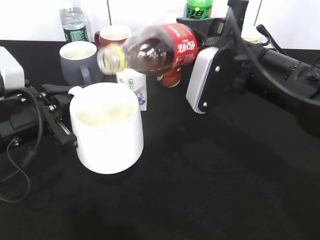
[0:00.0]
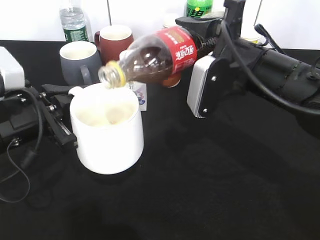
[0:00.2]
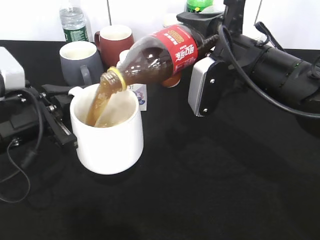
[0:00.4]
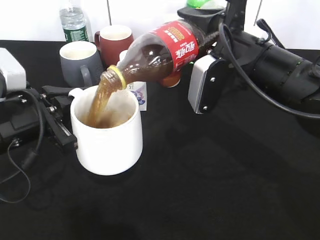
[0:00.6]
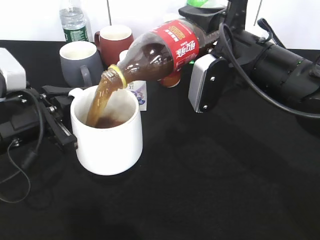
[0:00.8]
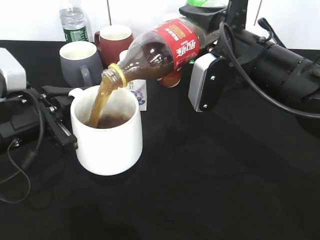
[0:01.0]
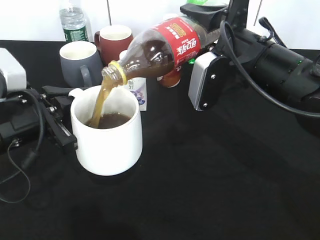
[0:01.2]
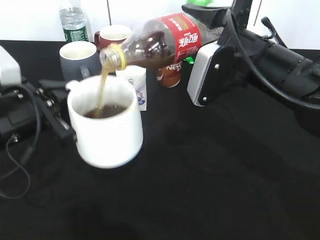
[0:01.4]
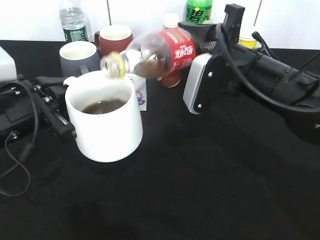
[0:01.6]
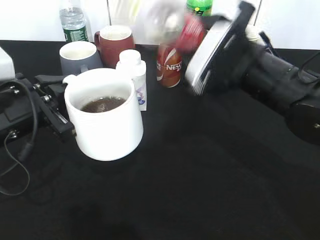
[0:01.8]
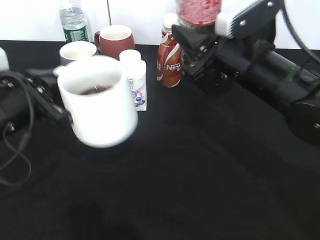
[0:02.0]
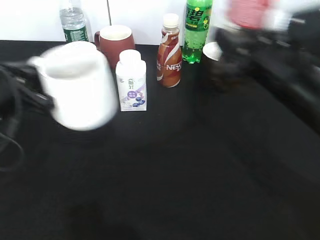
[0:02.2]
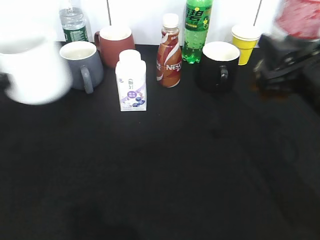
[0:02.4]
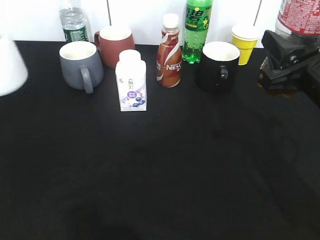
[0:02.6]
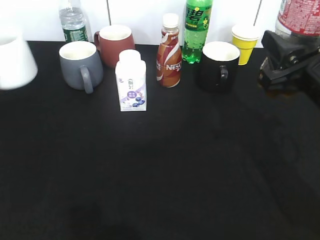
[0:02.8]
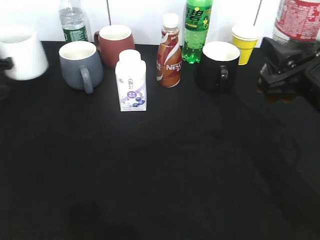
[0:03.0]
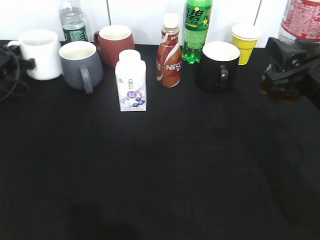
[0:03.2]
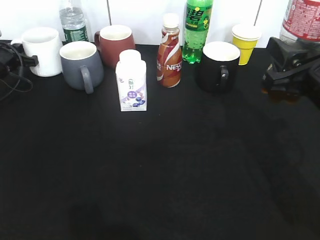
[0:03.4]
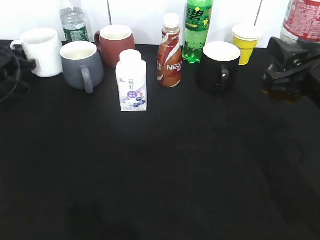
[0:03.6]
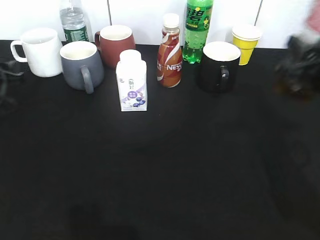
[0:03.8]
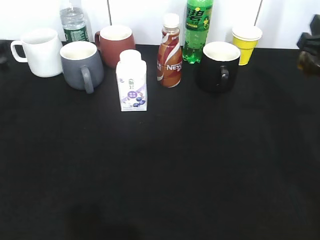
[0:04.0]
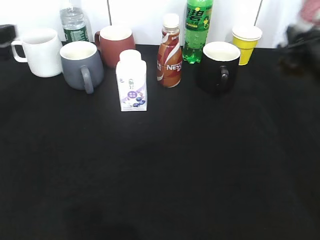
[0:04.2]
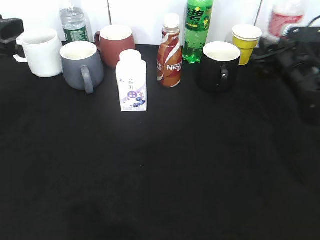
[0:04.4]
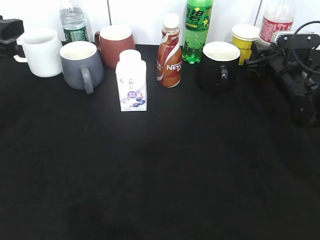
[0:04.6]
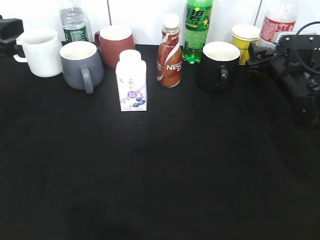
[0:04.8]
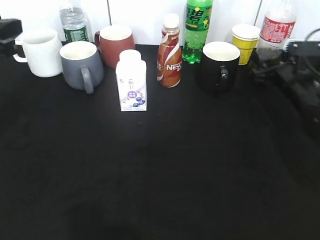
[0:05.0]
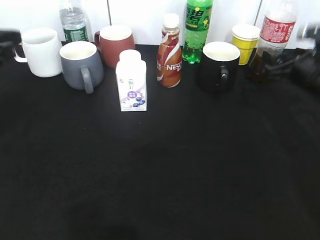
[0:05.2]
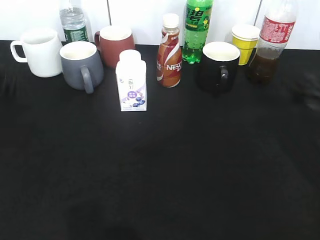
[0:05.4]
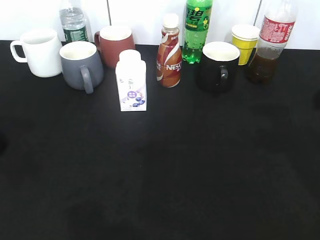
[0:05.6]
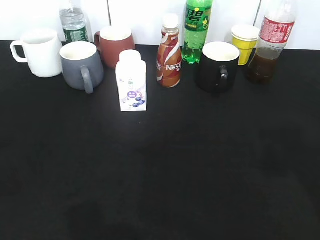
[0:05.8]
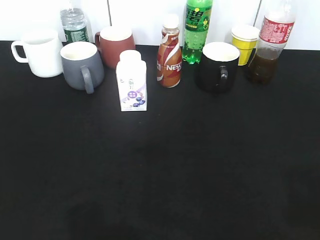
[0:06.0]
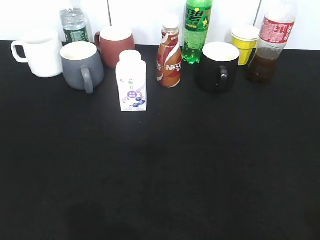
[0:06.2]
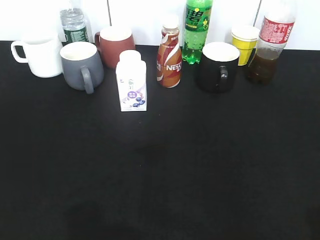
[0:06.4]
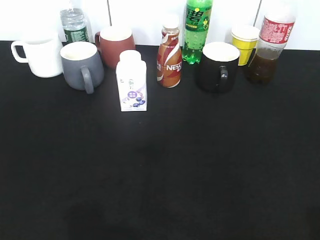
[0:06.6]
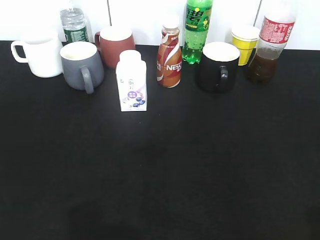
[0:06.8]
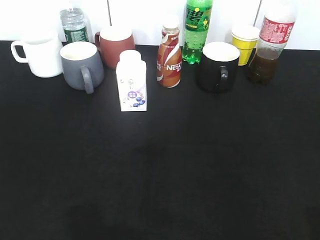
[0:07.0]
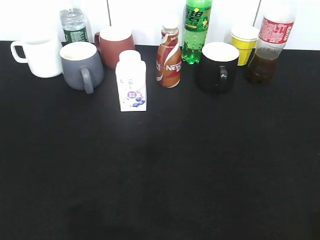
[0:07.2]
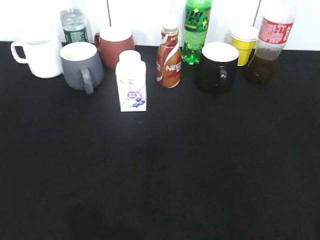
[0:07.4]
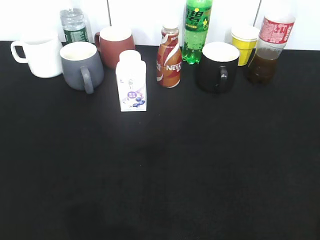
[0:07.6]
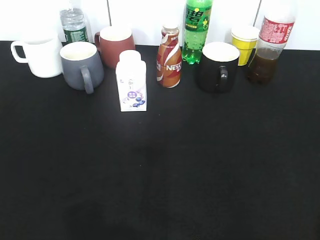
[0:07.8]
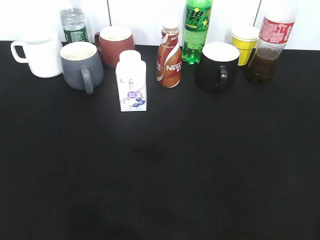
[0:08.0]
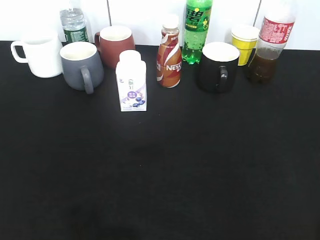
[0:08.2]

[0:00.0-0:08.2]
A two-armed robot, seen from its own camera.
Step, 0:01.8 to 0:03.8: Place the white cup on the table with left gripper.
Step, 0:04.0 to 0:05.2: Place the cola bottle on the table with right gripper.
0:00.0 to 0:01.6: The grippers make only small movements.
0:01.6 to 0:03.2: The right gripper travels to the right and backward by approximately 10 cm. Meanwhile the left gripper goes some 25 cm forward and to the left.
0:03.2 to 0:05.0: The right gripper goes roughly 20 cm forward and downward, and opens up, while the left gripper heads backward, upward and to the right, covering approximately 25 cm, and opens up.
0:05.0 to 0:06.6: The left gripper is displaced backward by some 25 cm; the right gripper is displaced backward and upward by about 40 cm.

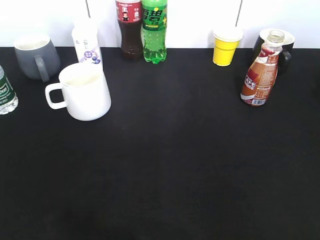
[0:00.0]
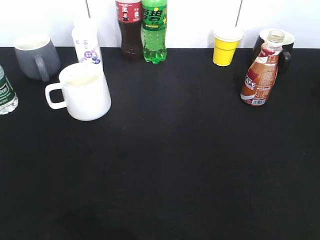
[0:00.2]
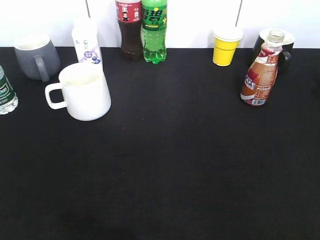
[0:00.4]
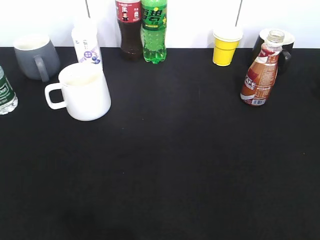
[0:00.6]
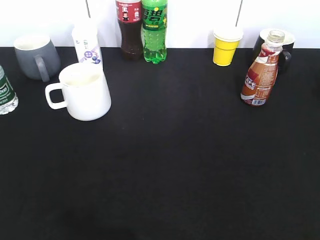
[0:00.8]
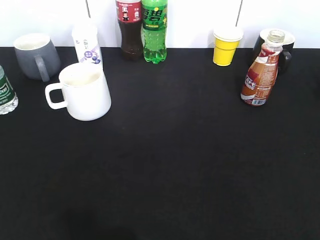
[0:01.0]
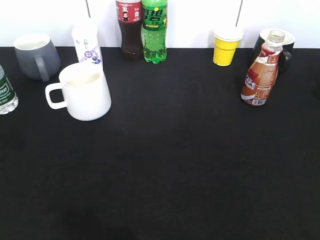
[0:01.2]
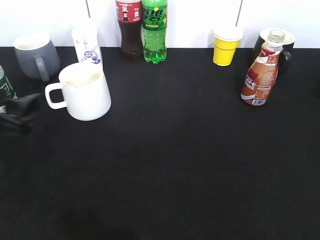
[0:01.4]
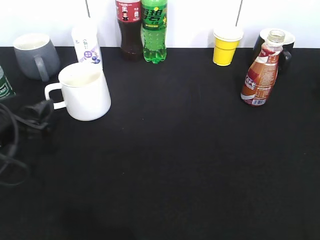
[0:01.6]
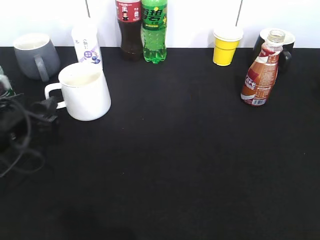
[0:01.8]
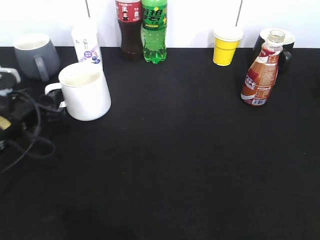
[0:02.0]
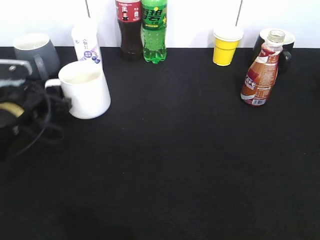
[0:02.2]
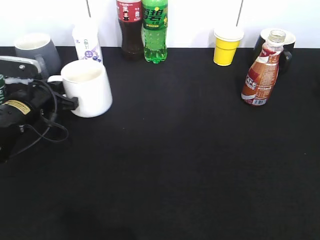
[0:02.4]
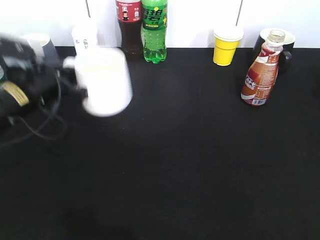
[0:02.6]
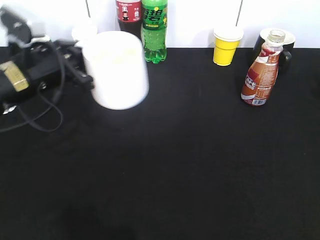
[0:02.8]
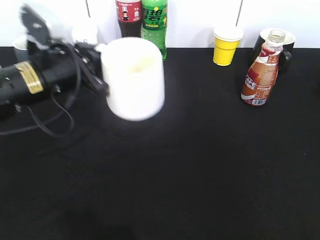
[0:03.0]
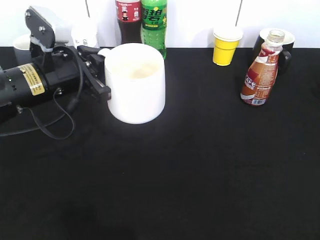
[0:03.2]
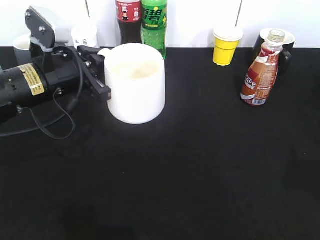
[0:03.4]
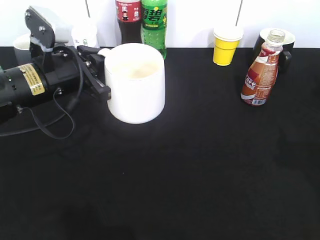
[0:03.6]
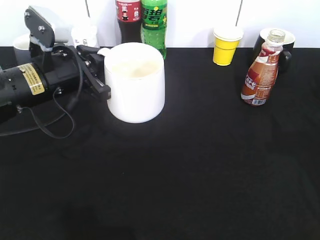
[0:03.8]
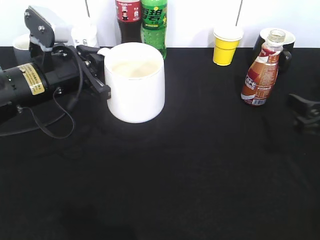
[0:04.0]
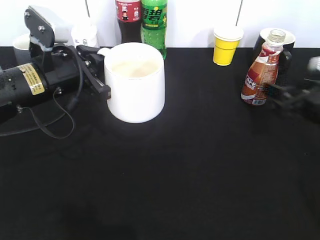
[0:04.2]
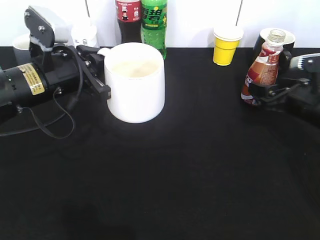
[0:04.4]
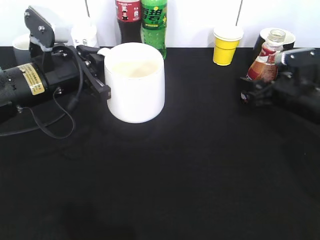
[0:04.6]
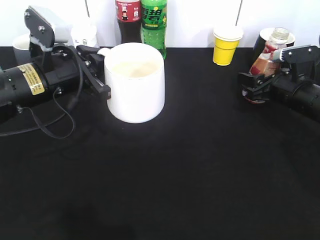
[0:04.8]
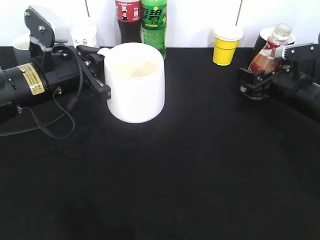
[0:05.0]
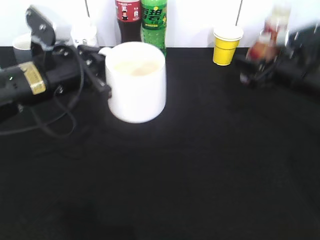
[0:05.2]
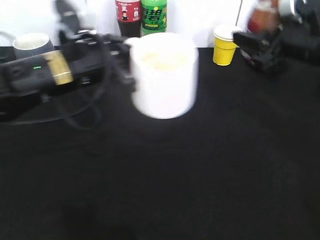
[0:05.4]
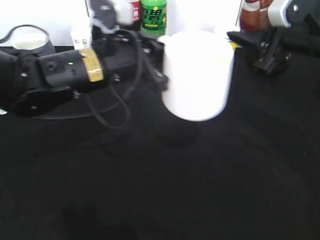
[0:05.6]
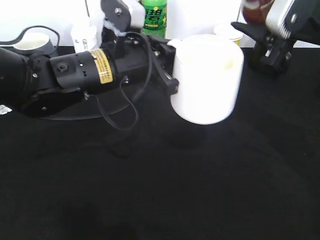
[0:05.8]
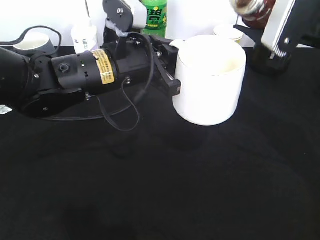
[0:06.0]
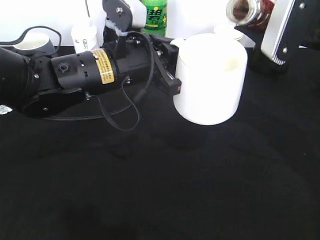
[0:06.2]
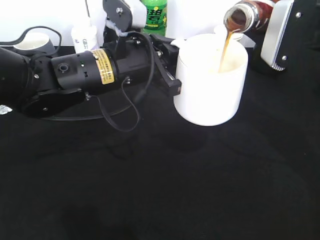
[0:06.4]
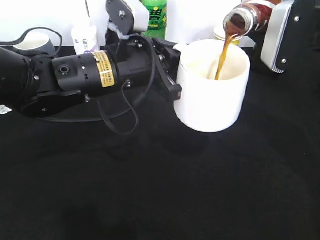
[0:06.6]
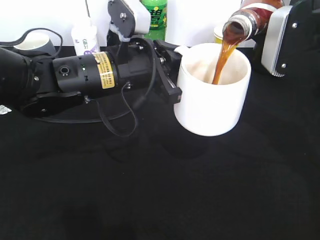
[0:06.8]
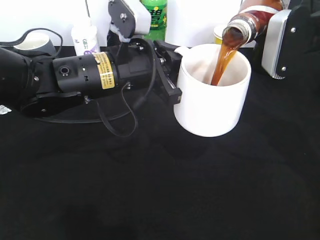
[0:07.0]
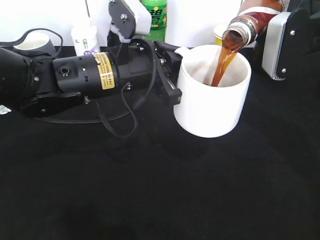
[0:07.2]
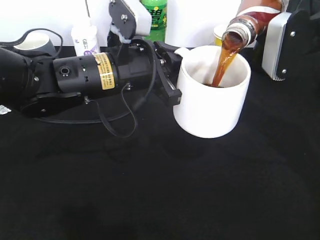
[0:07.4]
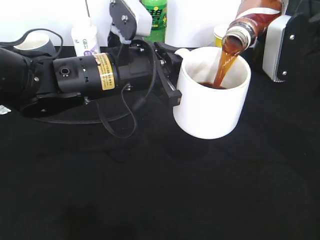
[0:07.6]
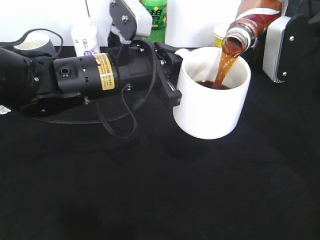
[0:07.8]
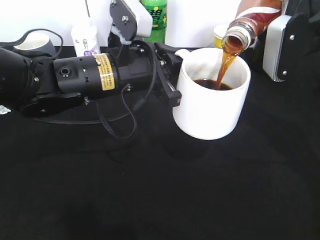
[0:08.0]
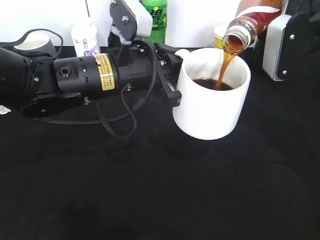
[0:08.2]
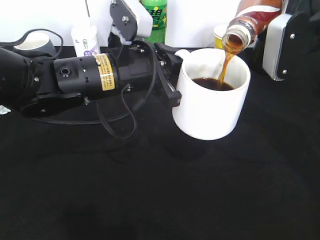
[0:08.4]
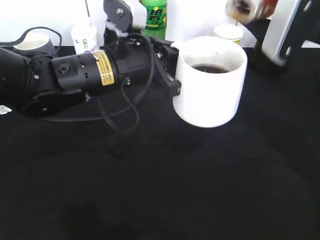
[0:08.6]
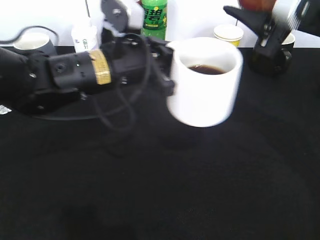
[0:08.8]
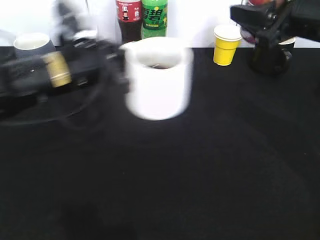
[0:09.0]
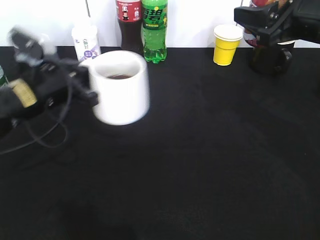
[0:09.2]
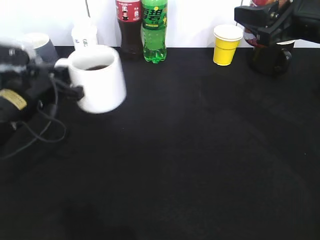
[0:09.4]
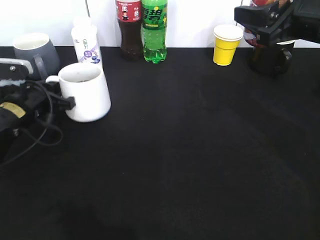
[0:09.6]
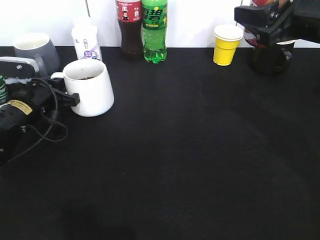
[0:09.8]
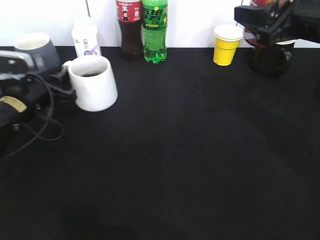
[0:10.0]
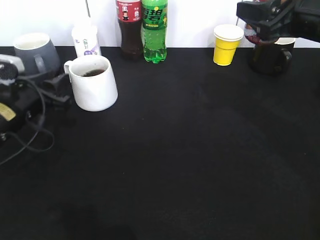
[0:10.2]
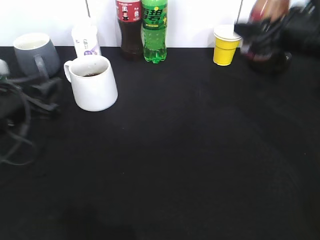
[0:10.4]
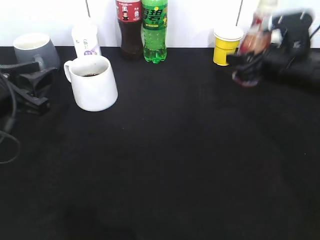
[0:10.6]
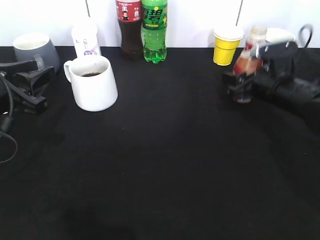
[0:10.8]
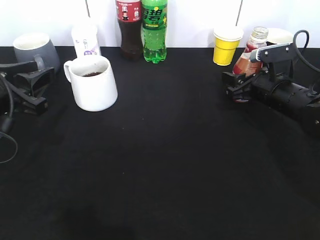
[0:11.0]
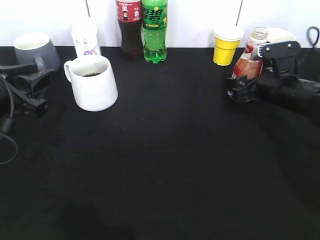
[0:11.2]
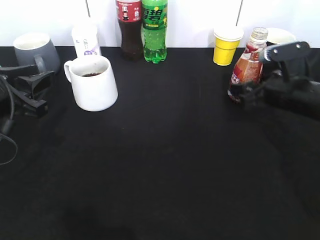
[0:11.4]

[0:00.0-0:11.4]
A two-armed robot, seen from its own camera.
Step, 0:00.8 to 0:02.2: Grasp the white cup with left gripper.
Step, 0:02.4 to 0:03.0: Lift the white cup with left gripper.
Step, 0:03.2 to 0:04.6: Grasp the bottle with coffee with right gripper.
Step, 0:04.8 to 0:08.8: Pour the coffee from bottle to cup with right gripper.
Step, 0:09.2 to 0:10.0: Place the white cup on the table with left gripper.
0:00.0 to 0:01.4: The left gripper is displaced forward and downward by about 25 cm, and opens its fingers.
0:01.4 to 0:02.8: The left gripper moves forward and to the right, roughly 10 cm, and closes its fingers.
0:02.8 to 0:04.2: The right gripper shifts about 30 cm forward and downward, and opens its fingers.
0:04.2 to 0:05.6: The right gripper heads upward and to the left, covering roughly 15 cm, and closes up, while the left gripper shifts about 10 cm to the right.
0:07.2 to 0:08.6: There are only small adjustments of the grippers.
0:08.6 to 0:10.0: The left gripper shifts roughly 20 cm to the left and downward, and opens up.
0:10.0 to 0:11.4: The right gripper is displaced downward by roughly 15 cm, and opens, while the left gripper shifts some 10 cm backward and upward.

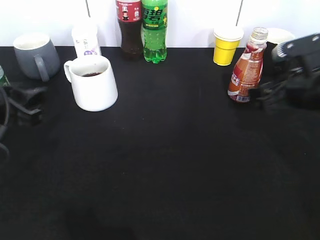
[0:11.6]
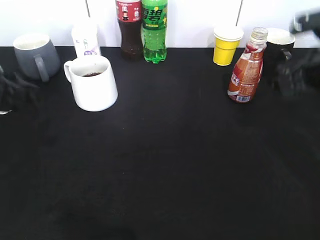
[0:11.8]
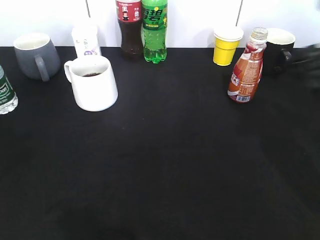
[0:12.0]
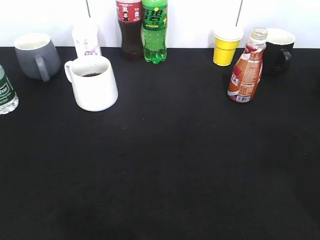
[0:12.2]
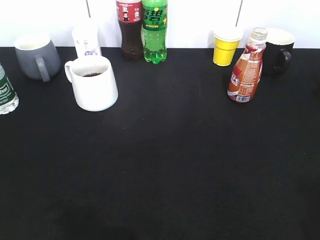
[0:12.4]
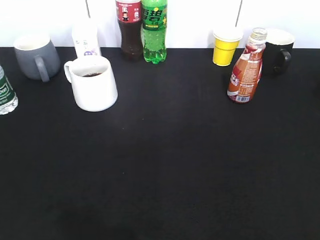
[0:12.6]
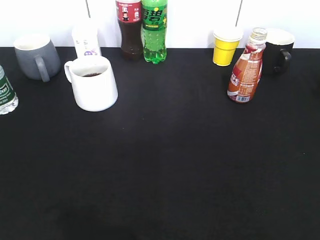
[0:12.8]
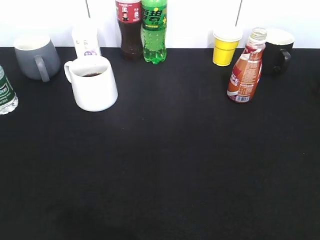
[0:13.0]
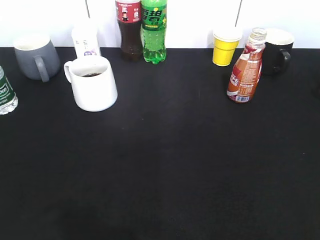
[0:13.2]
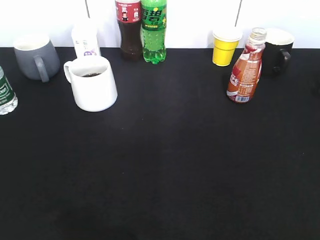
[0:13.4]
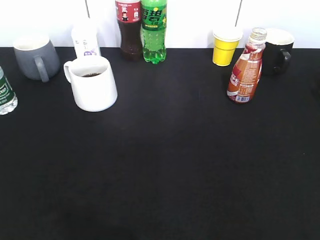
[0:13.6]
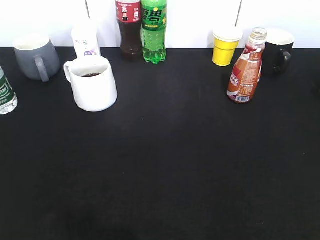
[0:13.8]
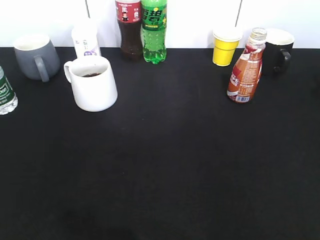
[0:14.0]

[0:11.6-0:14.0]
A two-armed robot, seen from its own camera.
0:11.6 to 0:12.8: The right gripper goes about 30 cm backward, while the left gripper moves backward and upward, about 25 cm.
